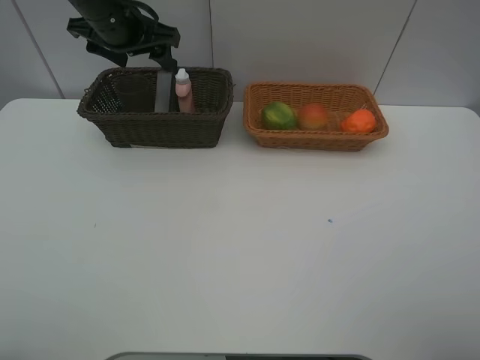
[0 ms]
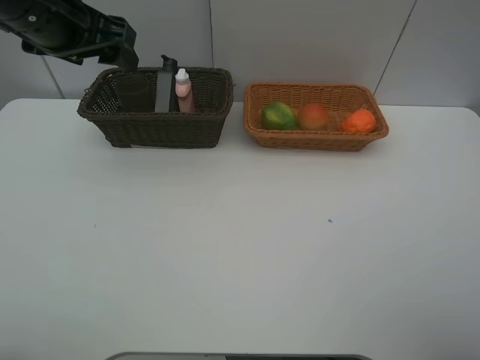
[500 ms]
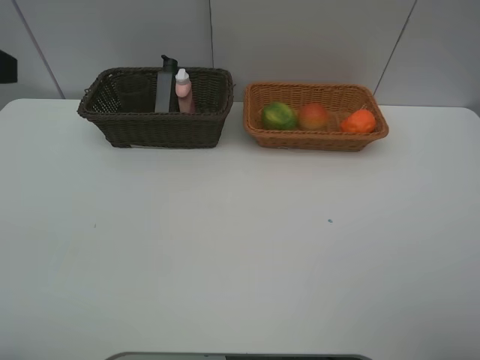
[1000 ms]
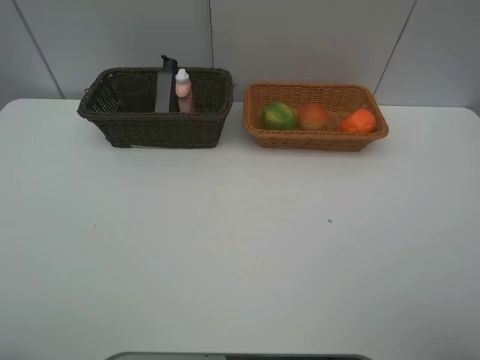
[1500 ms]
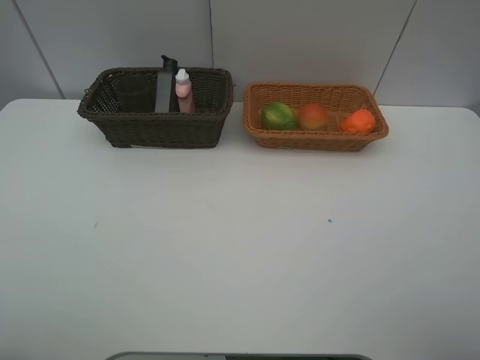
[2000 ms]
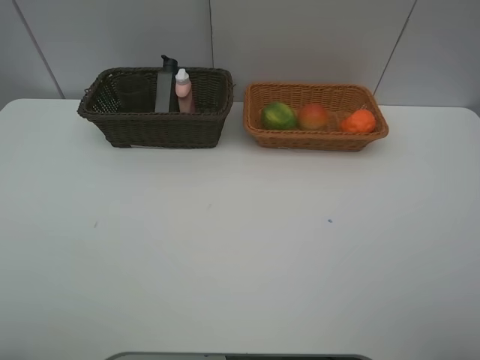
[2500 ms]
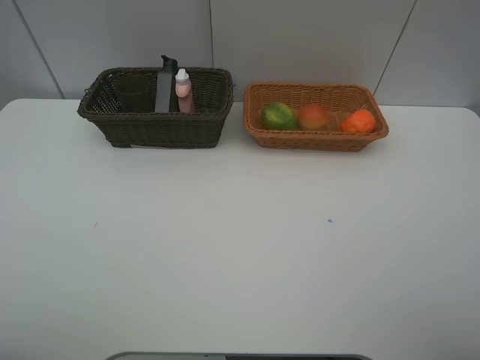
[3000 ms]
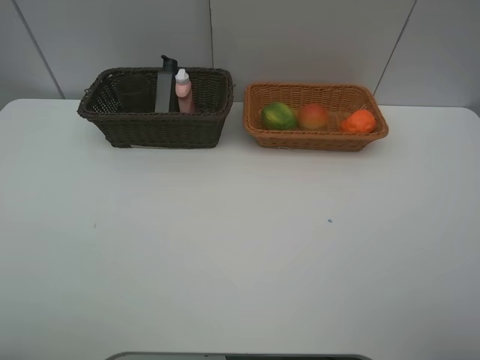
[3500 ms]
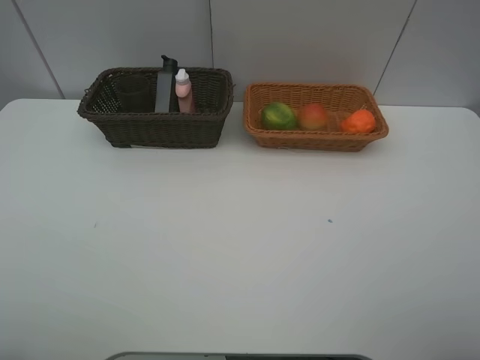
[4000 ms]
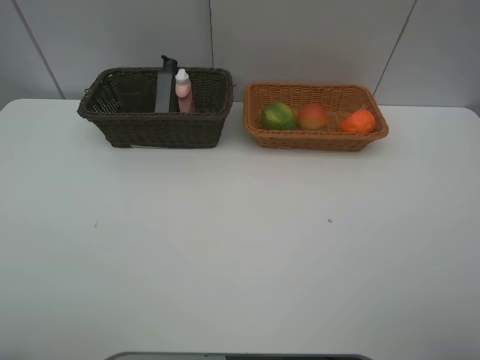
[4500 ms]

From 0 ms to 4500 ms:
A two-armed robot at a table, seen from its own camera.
Task of the whole recording: place multiple objects separately in different baskets.
From 0 ms to 2000 ms: The left gripper travels backward by approximately 40 cm.
